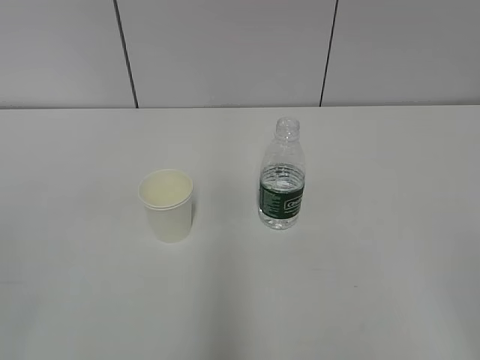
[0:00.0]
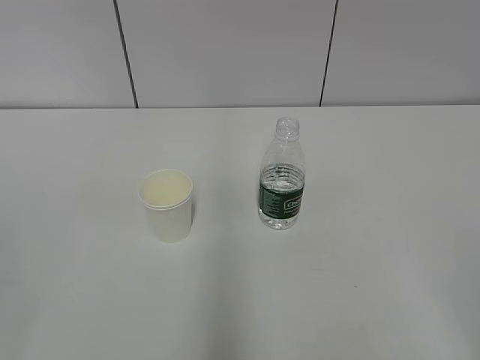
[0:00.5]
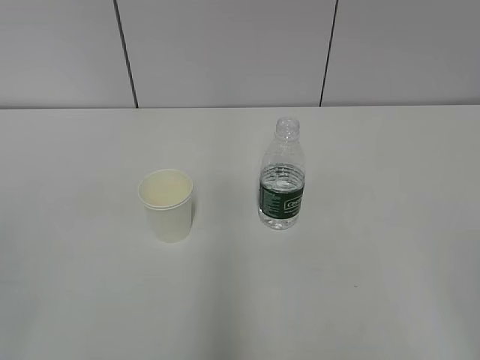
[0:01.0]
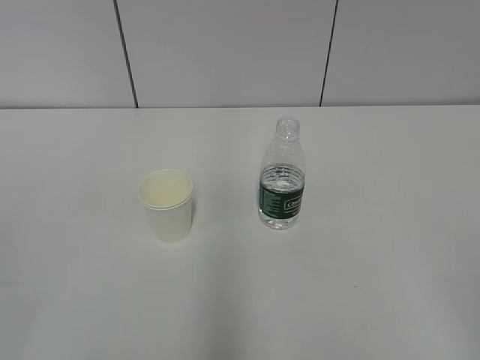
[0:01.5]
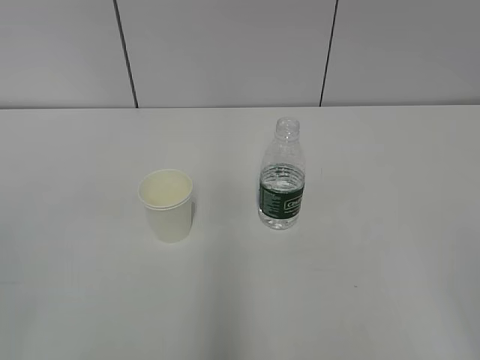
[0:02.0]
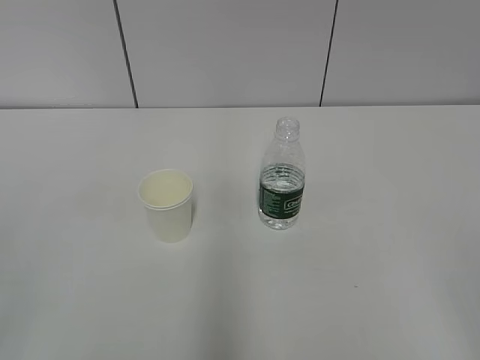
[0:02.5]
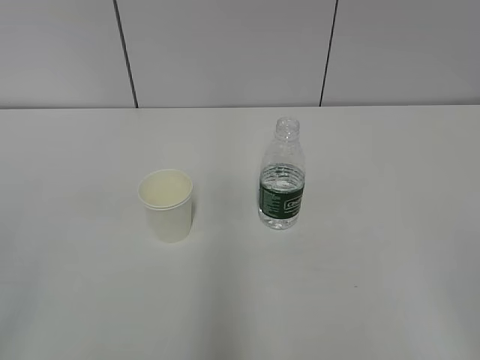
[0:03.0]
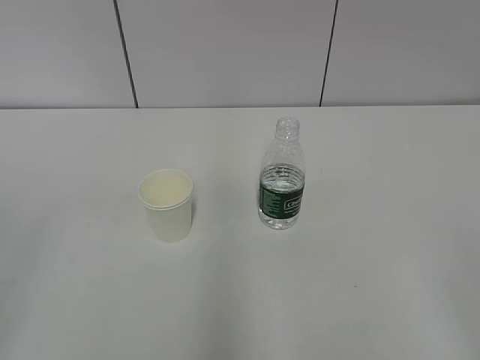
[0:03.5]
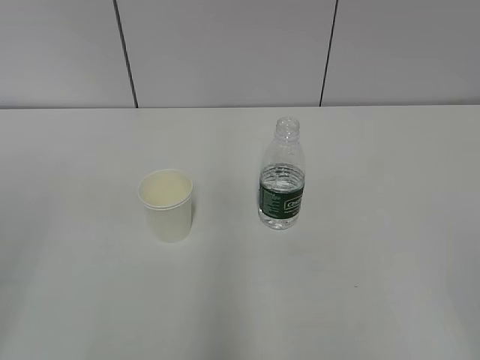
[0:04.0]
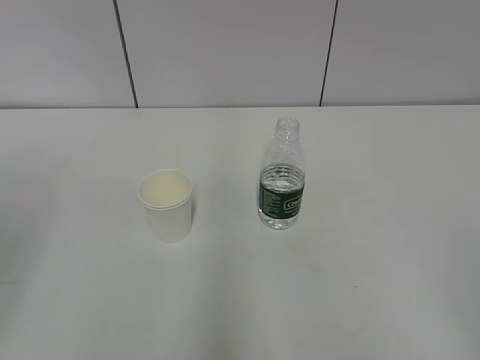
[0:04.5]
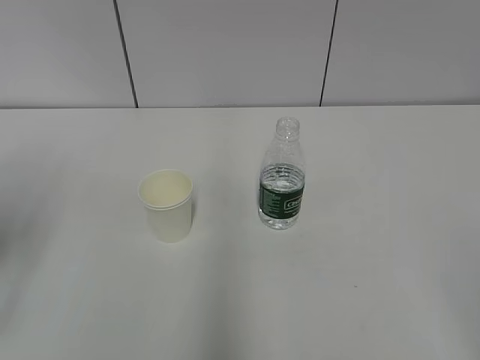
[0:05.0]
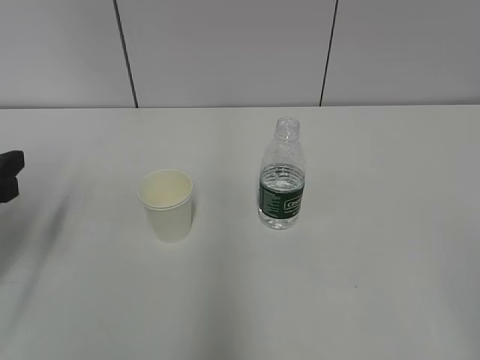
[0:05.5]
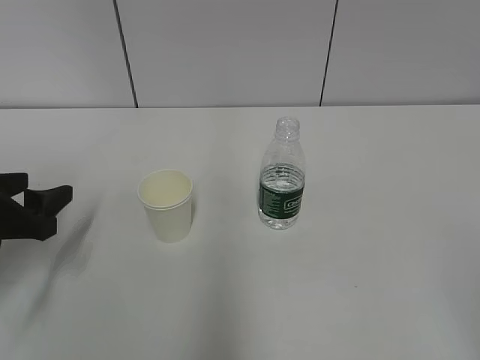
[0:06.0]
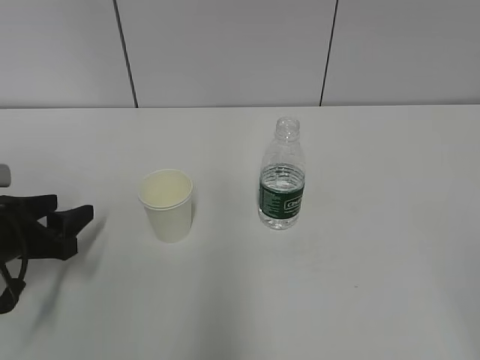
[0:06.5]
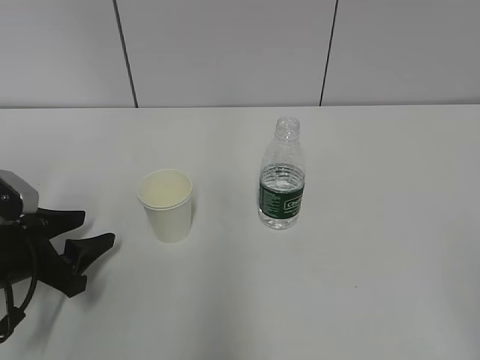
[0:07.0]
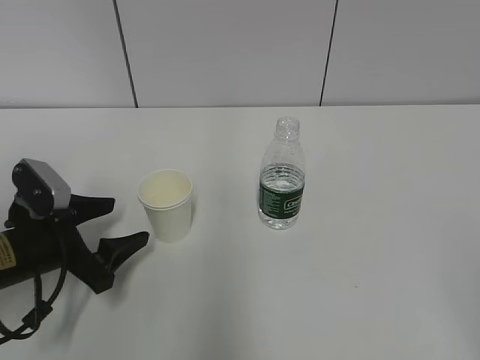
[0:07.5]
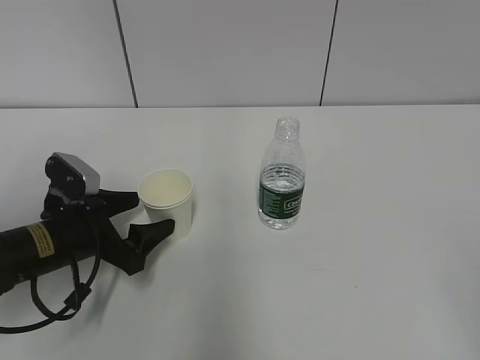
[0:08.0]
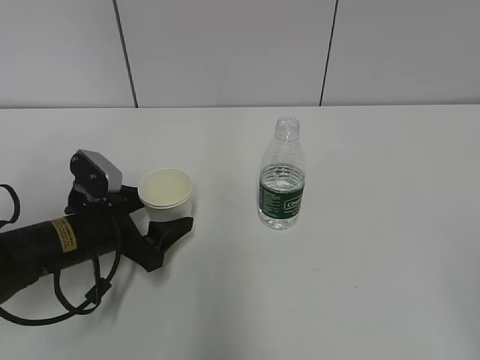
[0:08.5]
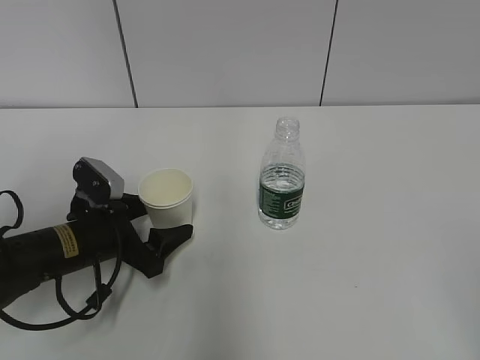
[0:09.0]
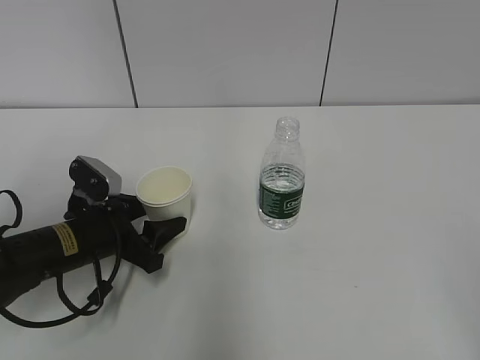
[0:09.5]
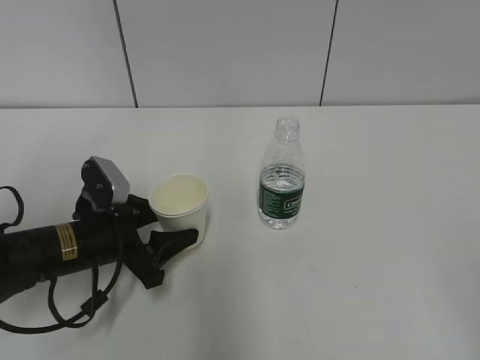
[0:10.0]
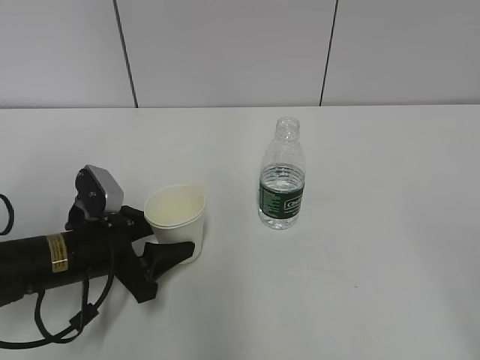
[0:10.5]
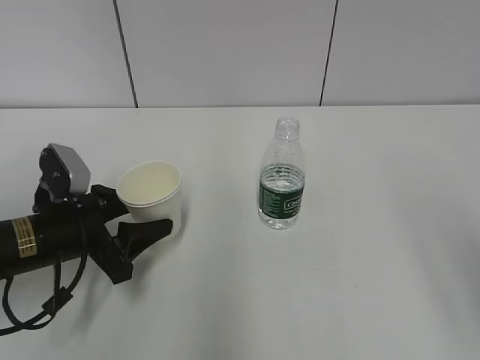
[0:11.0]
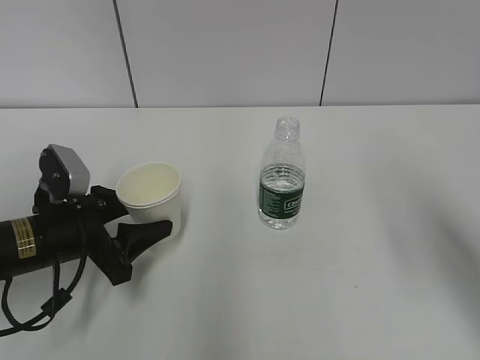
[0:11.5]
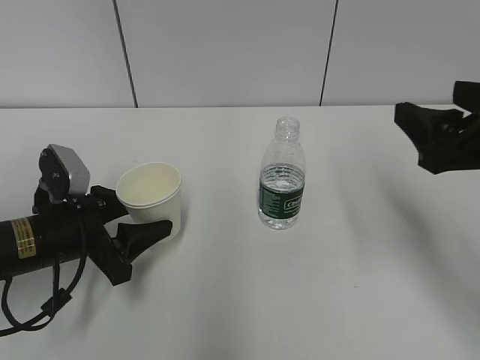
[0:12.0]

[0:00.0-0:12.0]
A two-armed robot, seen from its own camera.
Step, 0:00.0 to 0:08.0: Grab the paper cup with the left hand.
0:04.0 to 0:06.0: The left gripper goes about 25 cm forward and downward.
0:06.0 to 0:08.0: The left gripper heads to the right and downward, covering some 10 cm.
0:08.0 to 0:10.0: The left gripper closes up.
0:10.0 to 0:12.0: The right gripper heads forward, covering about 25 cm.

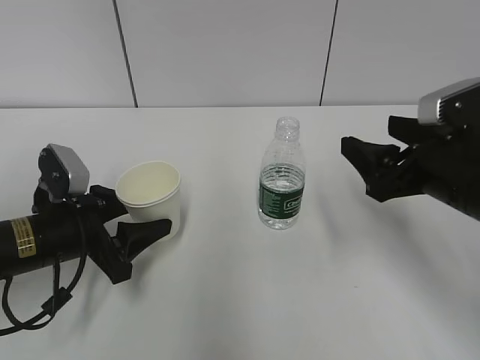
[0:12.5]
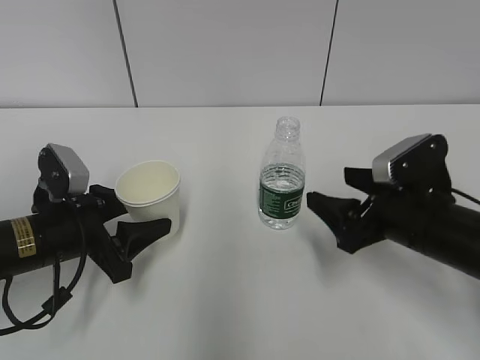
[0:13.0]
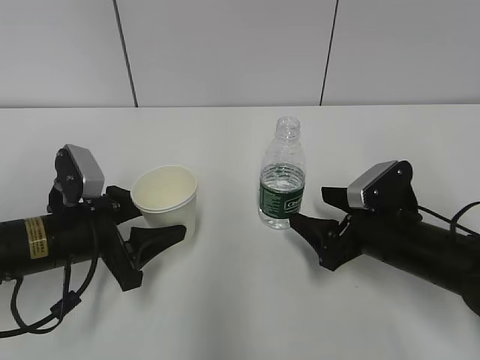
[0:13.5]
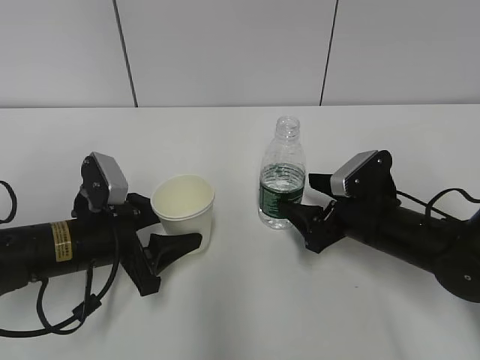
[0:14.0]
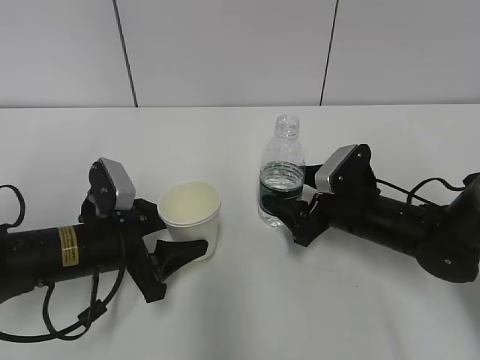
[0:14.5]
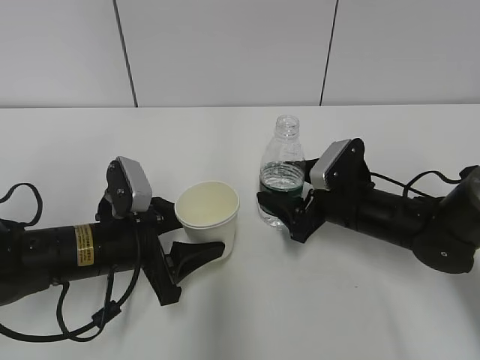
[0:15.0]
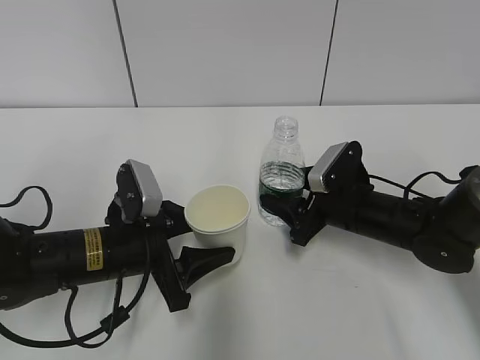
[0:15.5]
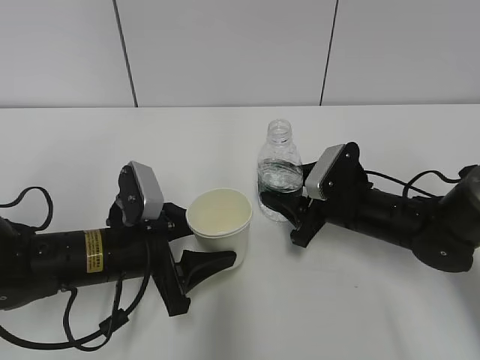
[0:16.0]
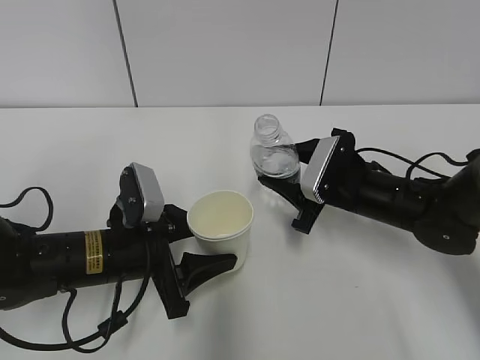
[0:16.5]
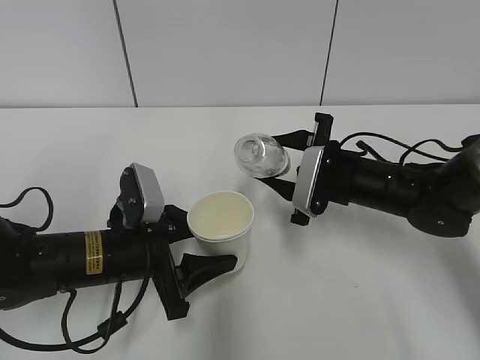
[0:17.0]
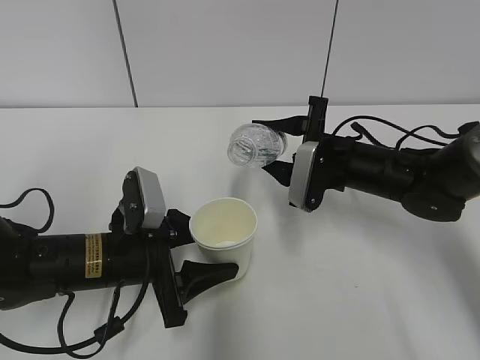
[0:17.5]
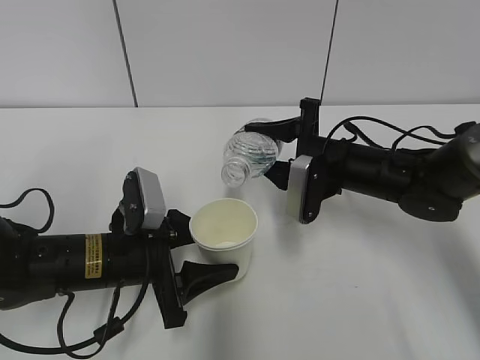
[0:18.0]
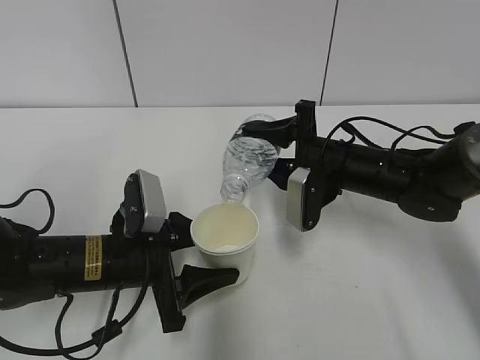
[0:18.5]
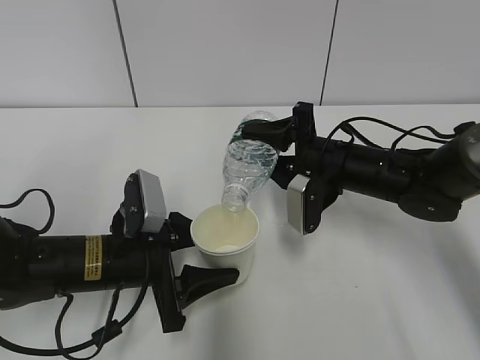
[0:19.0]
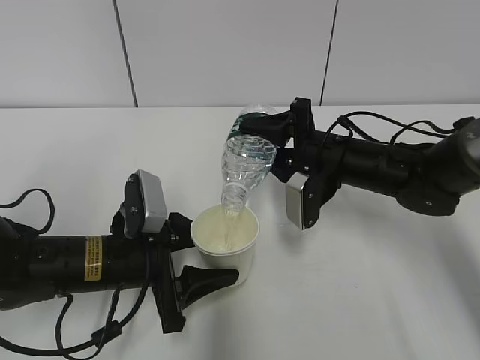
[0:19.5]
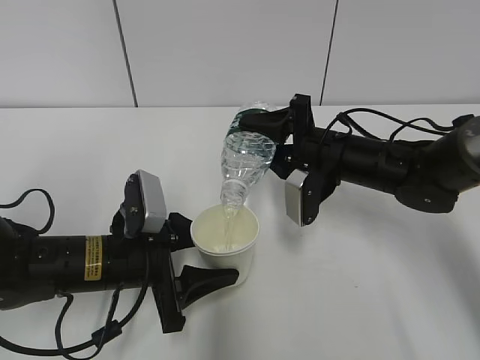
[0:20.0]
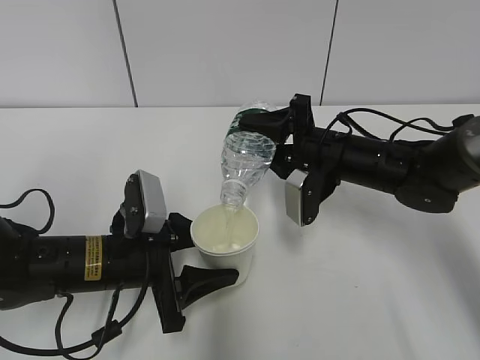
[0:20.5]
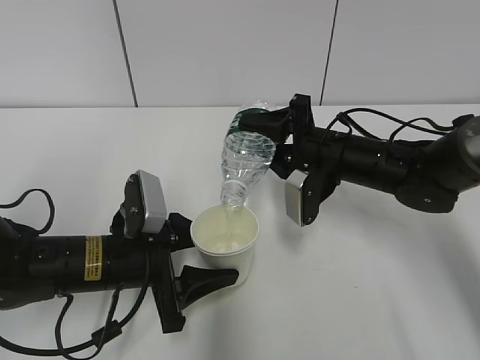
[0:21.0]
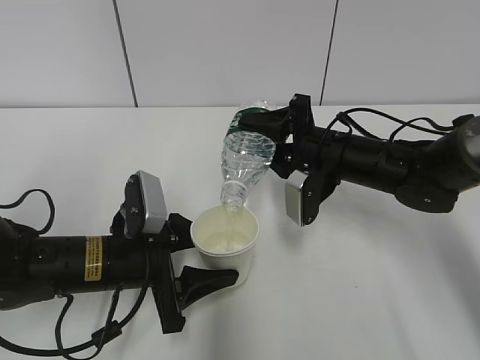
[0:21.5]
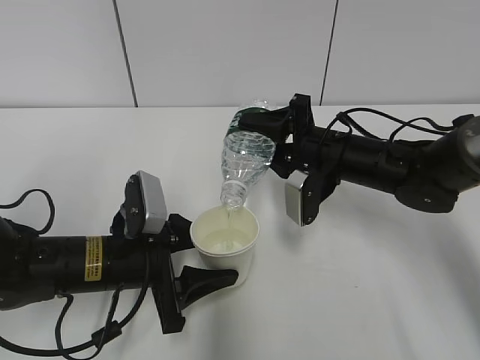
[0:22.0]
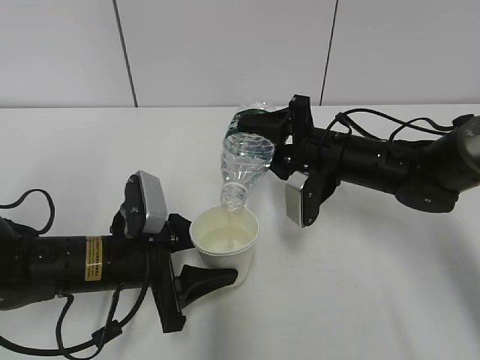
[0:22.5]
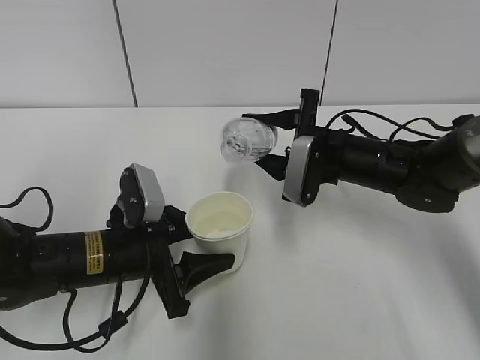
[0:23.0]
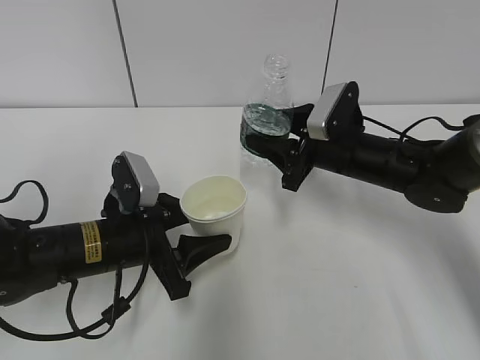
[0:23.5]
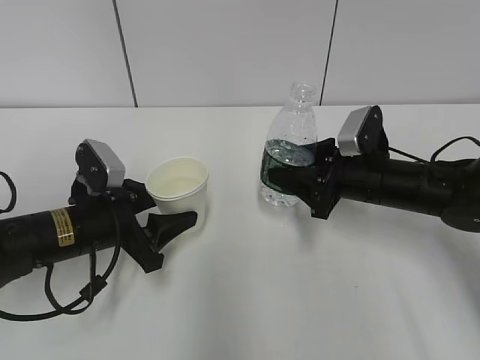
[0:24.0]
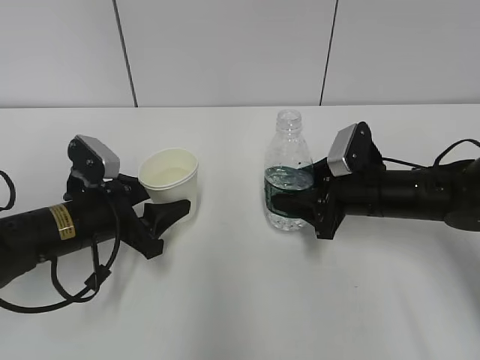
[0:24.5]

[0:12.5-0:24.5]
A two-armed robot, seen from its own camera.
Step, 0:13.5 to 0:15.5: Lift the paper cup with the left hand.
Step, 0:16.0 to 0:19.0: Pour water with the right hand.
0:12.5 to 0:14.5: The right gripper moves downward and forward, some 15 cm.
0:14.5 to 0:16.5: The right gripper closes up.
0:18.5 to 0:20.5: The grippers make only small movements.
0:20.5 to 0:22.5: Both grippers stay about where they are.
0:22.5 to 0:24.5: The right gripper changes place by roughly 5 cm; the left gripper changes place by roughly 5 cm.

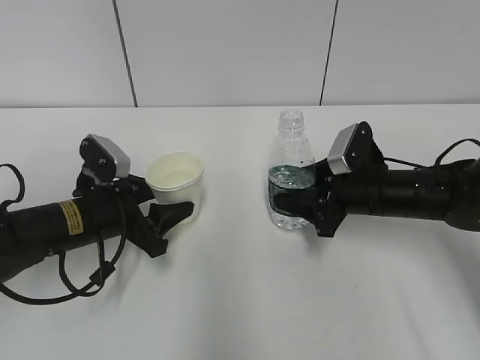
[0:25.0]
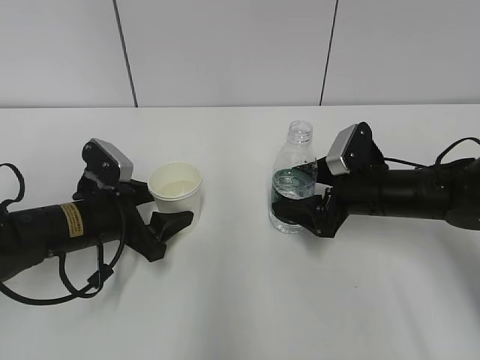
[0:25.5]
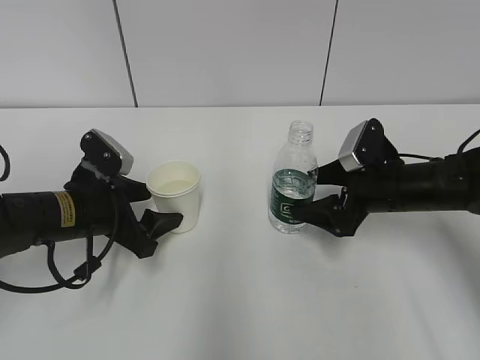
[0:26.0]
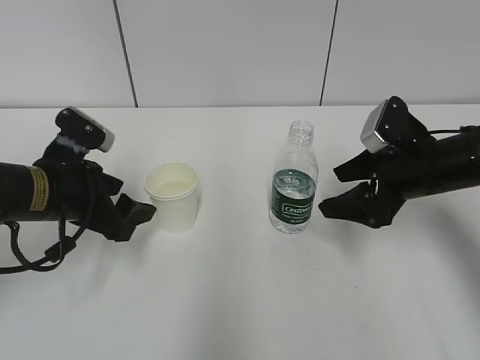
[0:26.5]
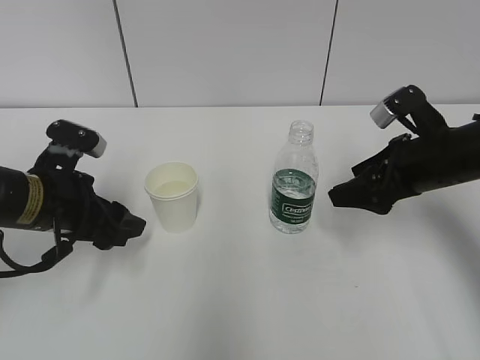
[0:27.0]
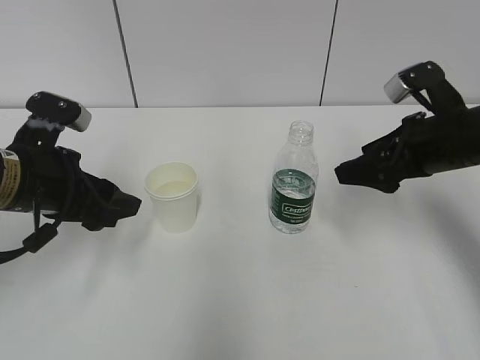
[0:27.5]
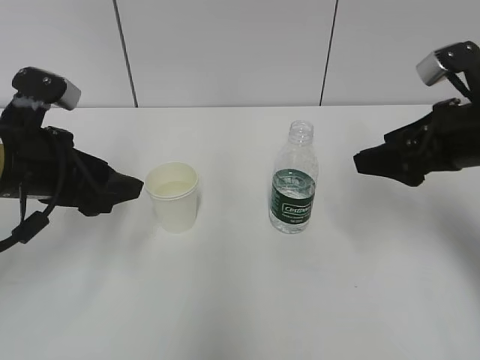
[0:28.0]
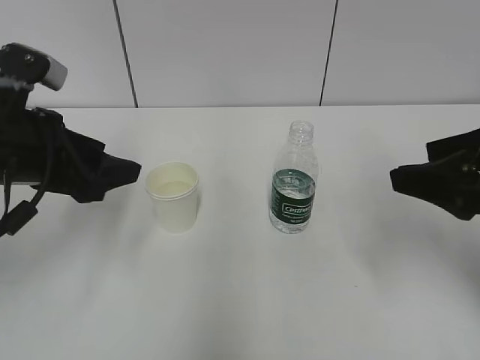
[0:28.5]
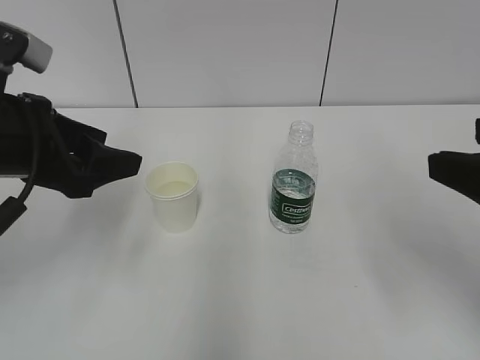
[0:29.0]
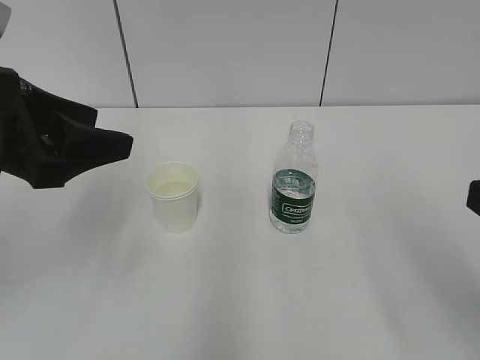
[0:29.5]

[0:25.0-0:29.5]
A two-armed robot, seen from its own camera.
0:25.0 to 0:27.0: Both grippers move upward, some 5 cm. The right gripper opens.
0:27.0 to 0:29.5: The left gripper goes some 15 cm upward and backward; the right gripper travels backward and upward by roughly 25 cm.
